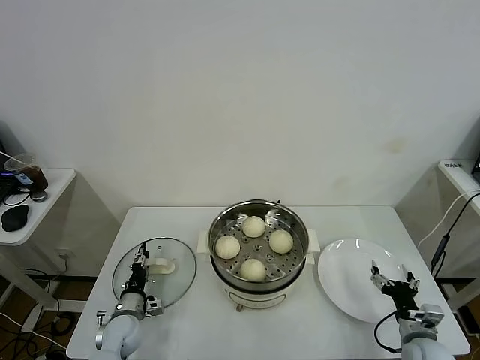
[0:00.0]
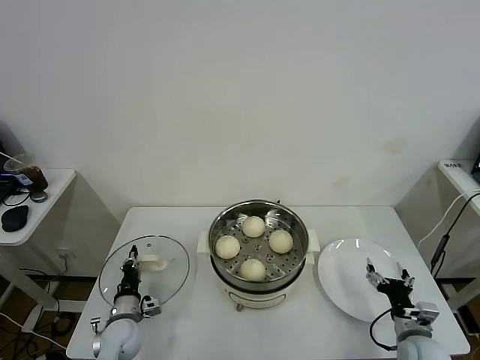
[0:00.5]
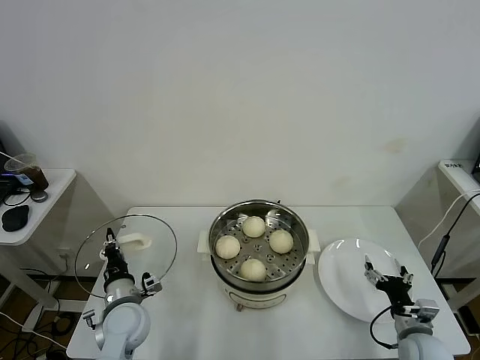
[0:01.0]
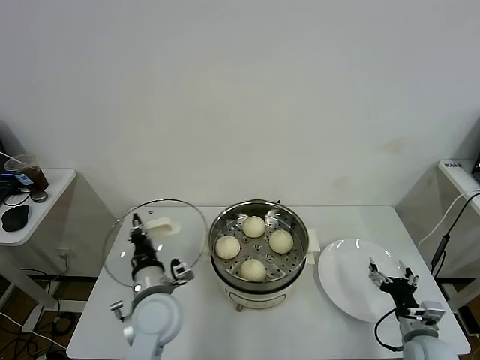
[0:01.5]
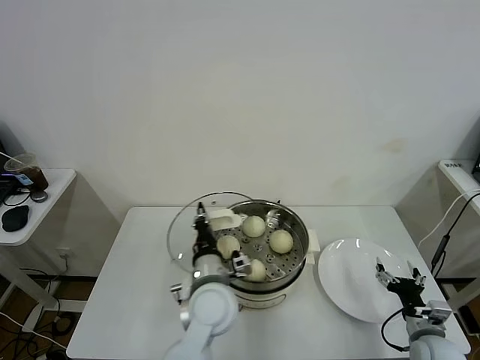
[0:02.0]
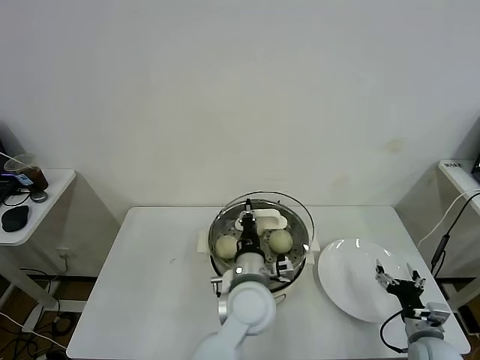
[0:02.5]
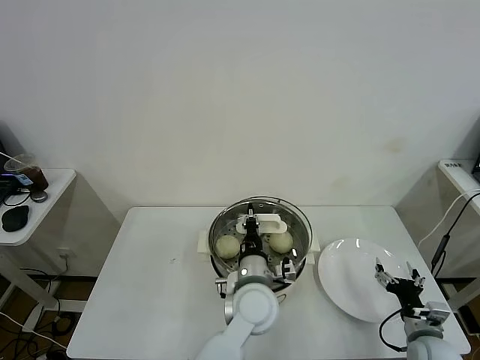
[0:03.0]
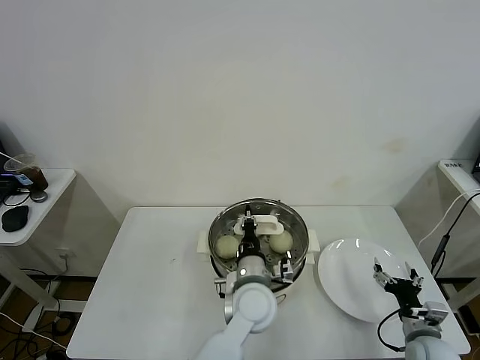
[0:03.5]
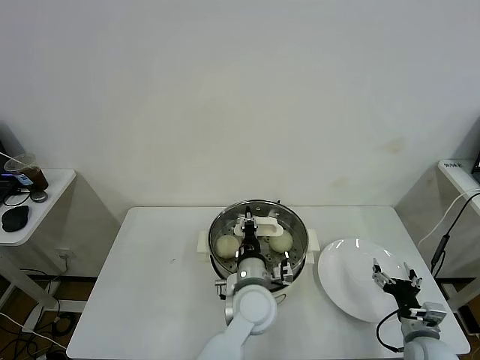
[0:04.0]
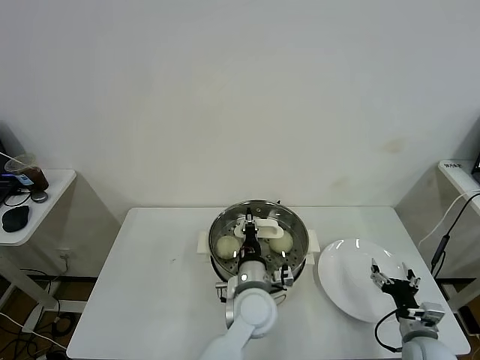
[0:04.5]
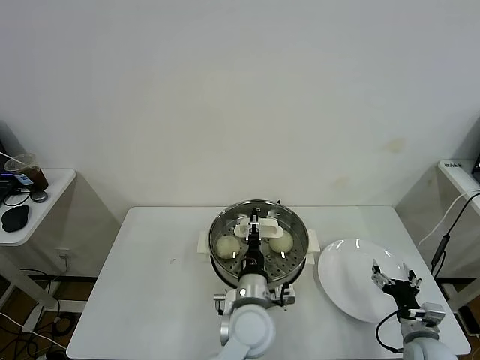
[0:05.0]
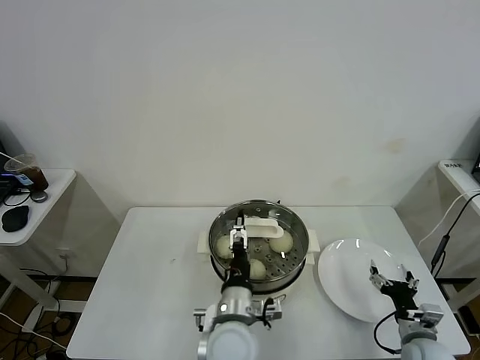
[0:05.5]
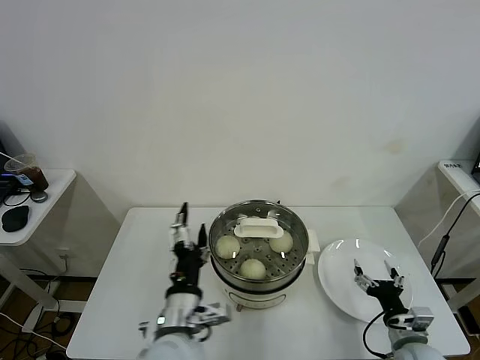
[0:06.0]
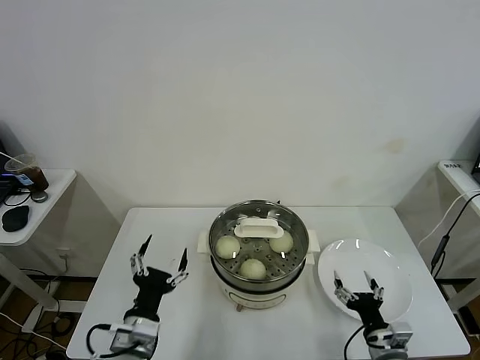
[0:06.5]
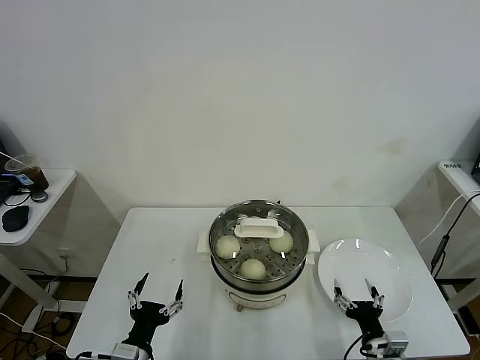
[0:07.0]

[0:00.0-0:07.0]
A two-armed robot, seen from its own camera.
Task of the whole recording: take steamed baozi put them in steamer.
Step, 0:01.0 to 0:05.0: Place the pot lid on the steamer with left gripper.
0:00.0 to 0:02.0: The left gripper shifts approximately 30 cm to the right and upward, and closes.
0:02.0 to 0:03.5: The left gripper moves to the right, about 10 cm.
0:03.5 to 0:05.0: The left gripper opens its fingers.
0:05.0 to 0:07.0: The left gripper moves to the left and backward, some 30 cm, and opens up; the right gripper goes about 10 cm to the left and backward.

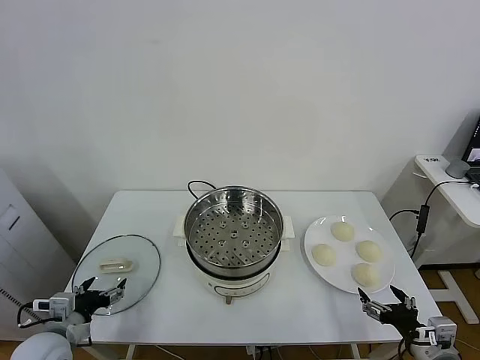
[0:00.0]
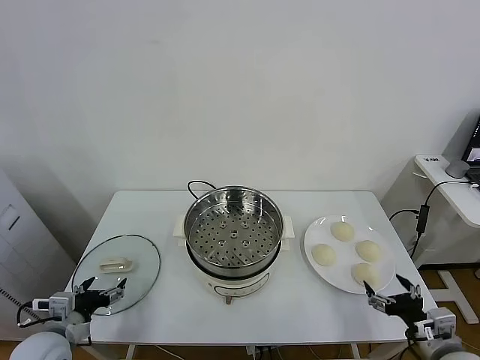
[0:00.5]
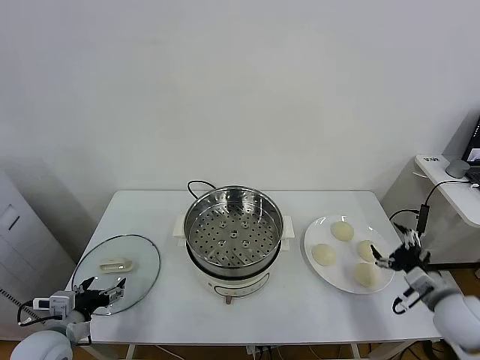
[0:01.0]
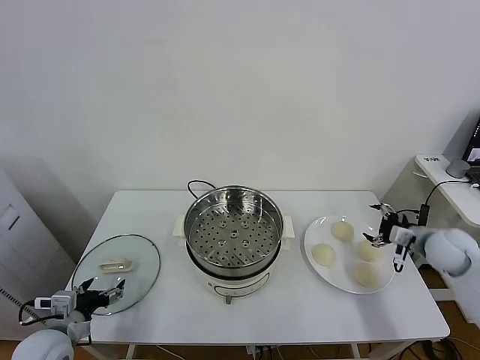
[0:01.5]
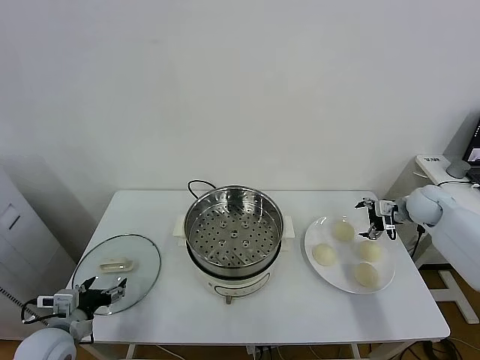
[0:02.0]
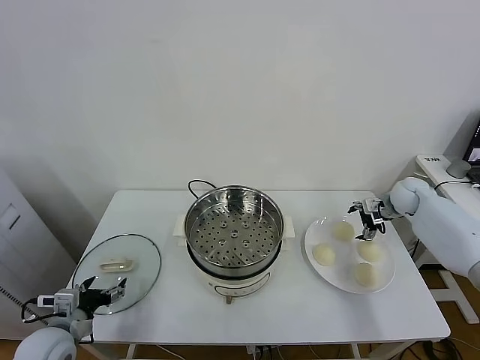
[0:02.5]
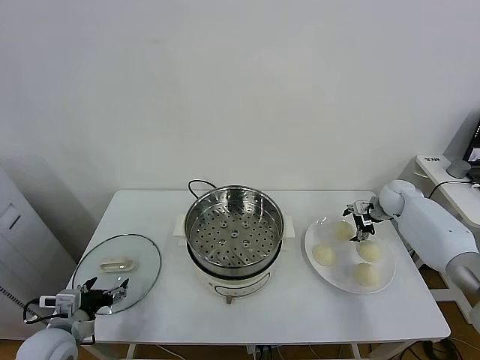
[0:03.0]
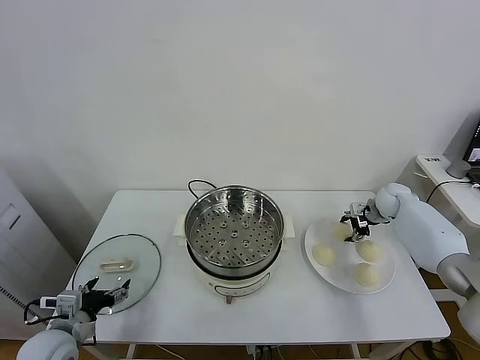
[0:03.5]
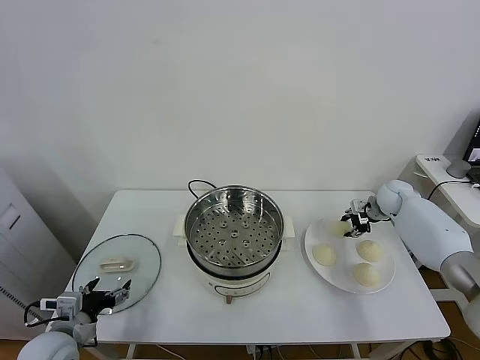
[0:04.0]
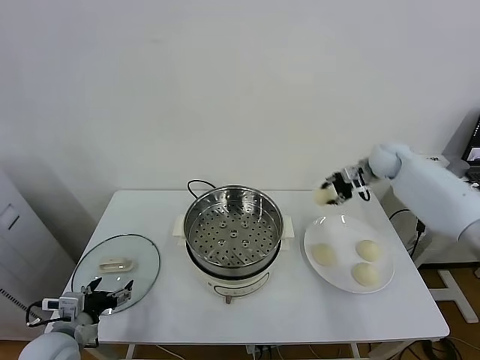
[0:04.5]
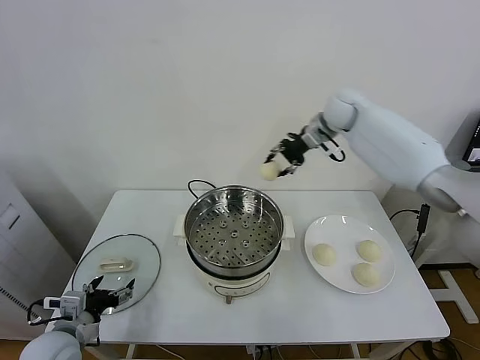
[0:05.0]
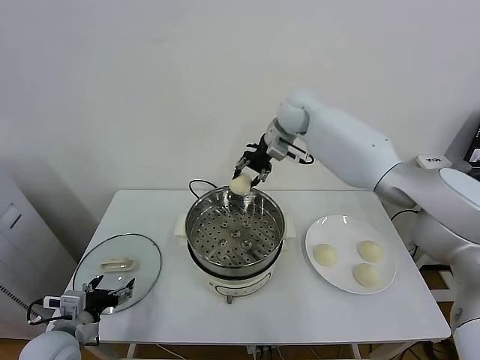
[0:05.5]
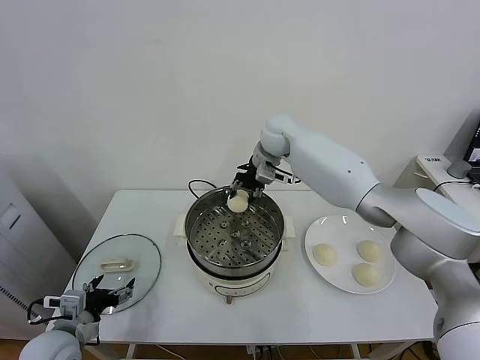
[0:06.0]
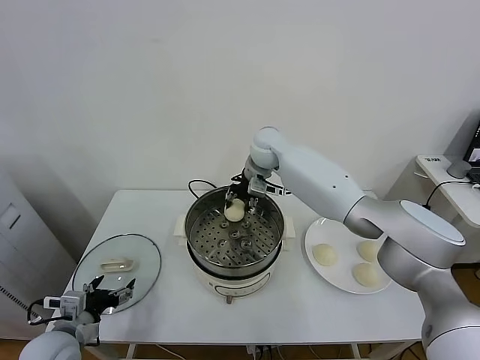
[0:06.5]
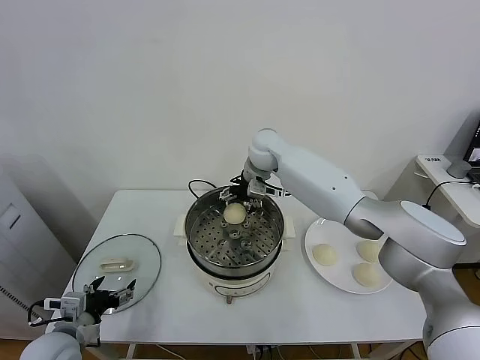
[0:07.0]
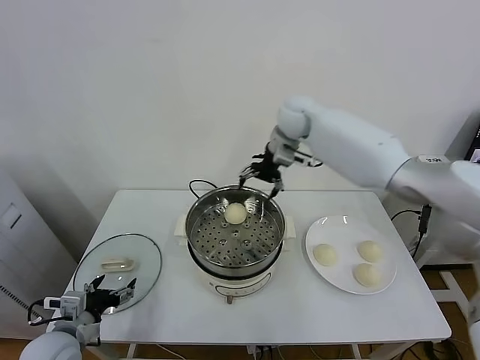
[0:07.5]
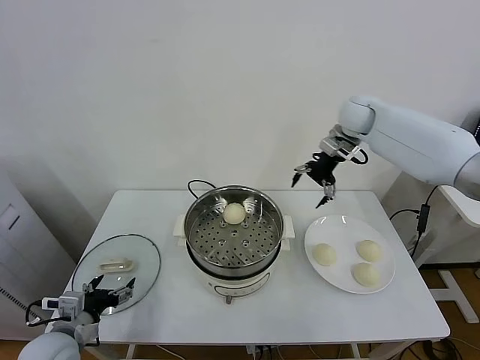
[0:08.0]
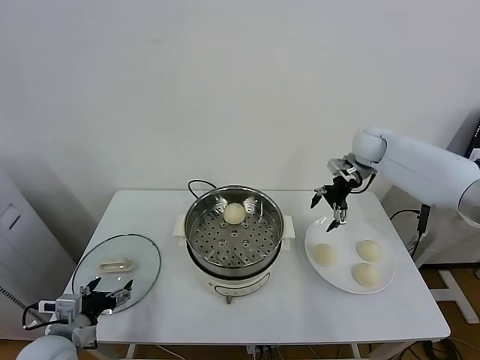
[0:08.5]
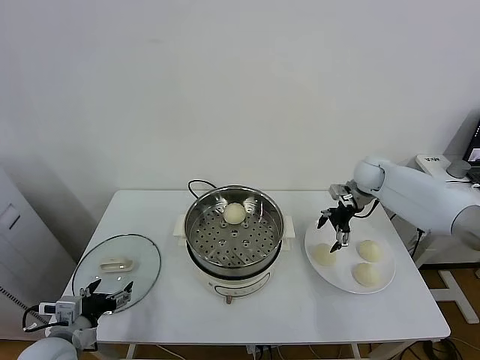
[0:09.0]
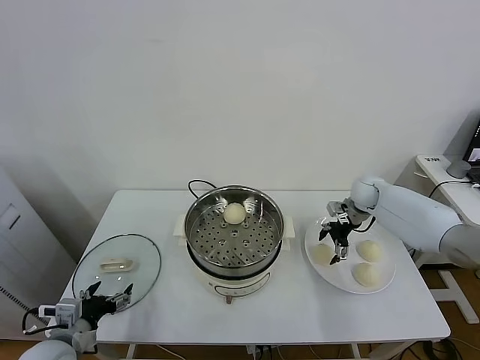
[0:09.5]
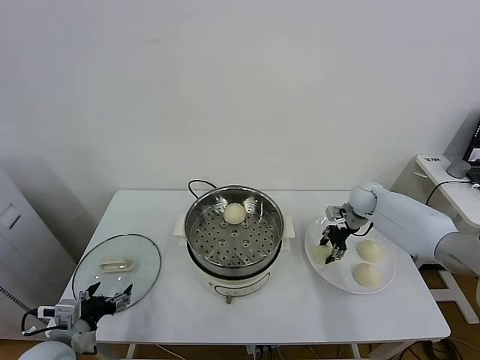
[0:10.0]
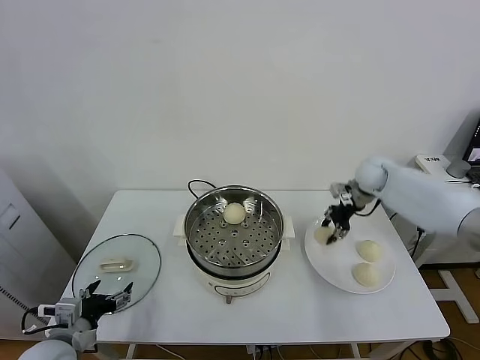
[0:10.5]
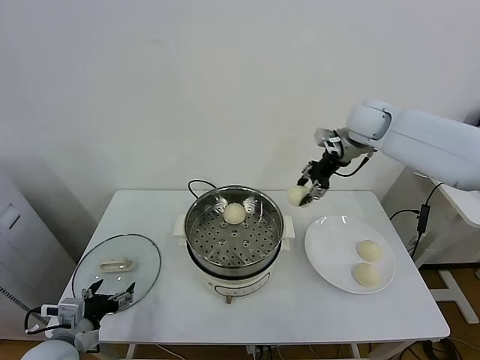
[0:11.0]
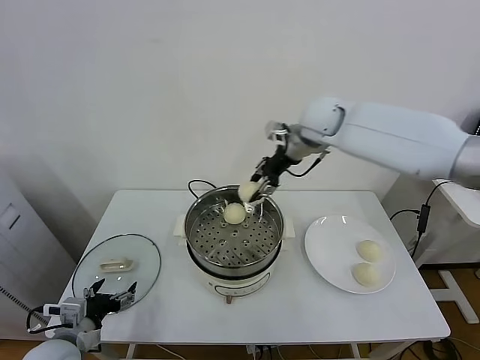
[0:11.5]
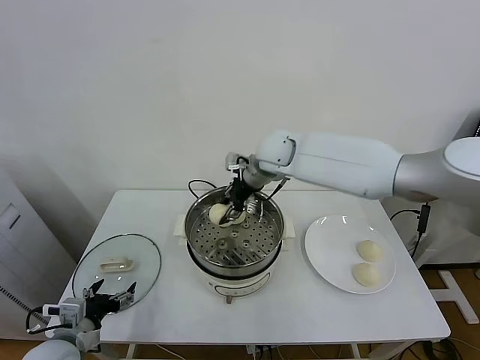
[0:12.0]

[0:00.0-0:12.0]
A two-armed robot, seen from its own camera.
Task of the whole recording: take steamed baozi put them in steamer.
Step, 0:00.0 to 0:03.5: Grasp the baozi in the plate with right gripper.
Step, 0:04.0 to 0:07.0: Place the baozi on the steamer with right gripper.
Step, 0:07.5 to 0:09.5: Grasp the baozi in the plate with right gripper.
0:02.0 to 0:04.0: The right gripper travels forward by some 5 cm, and closes its fingers.
0:04.0 to 0:06.0: The right gripper shifts approximately 40 cm to the left and upward.
0:06.0 to 0:08.0: The right gripper moves to the right, roughly 20 cm, and opens.
0:08.0 to 0:10.0: The right gripper travels downward by about 25 cm, and closes.
0:10.0 to 0:12.0: The right gripper travels to the left and upward by roughly 35 cm.

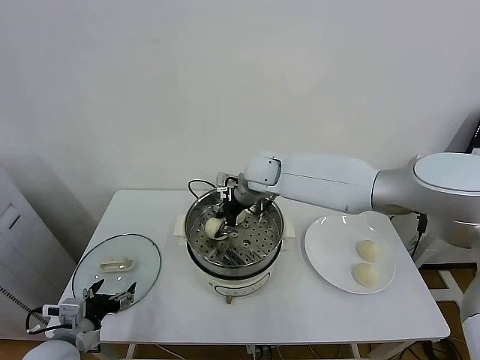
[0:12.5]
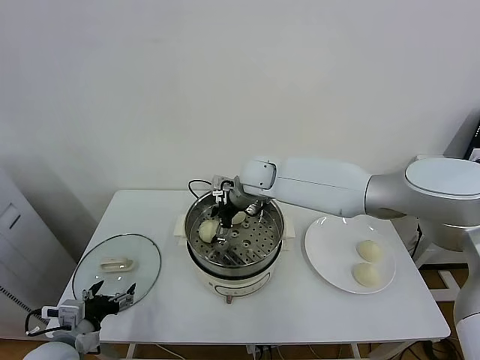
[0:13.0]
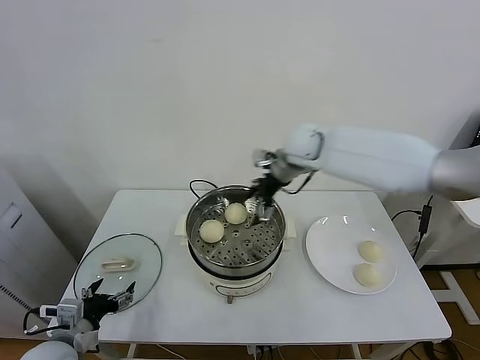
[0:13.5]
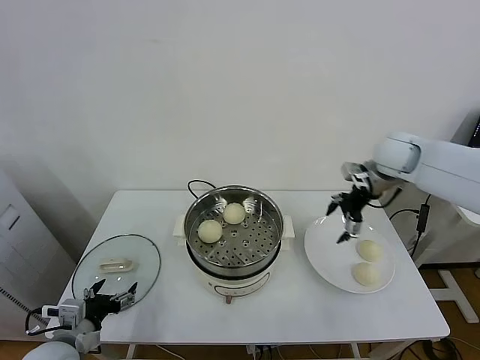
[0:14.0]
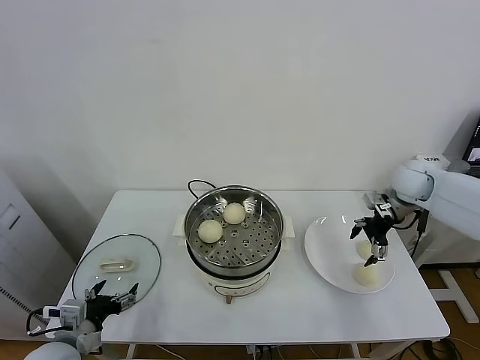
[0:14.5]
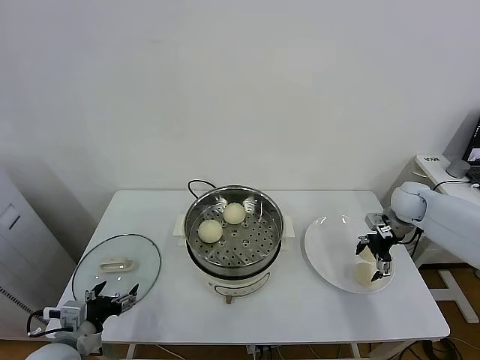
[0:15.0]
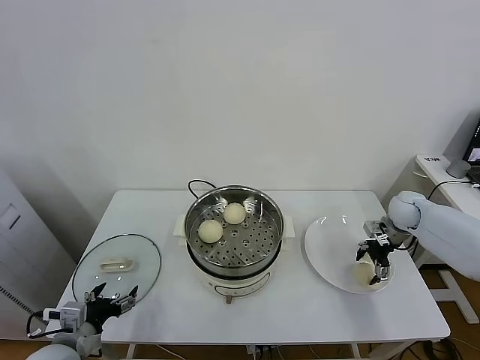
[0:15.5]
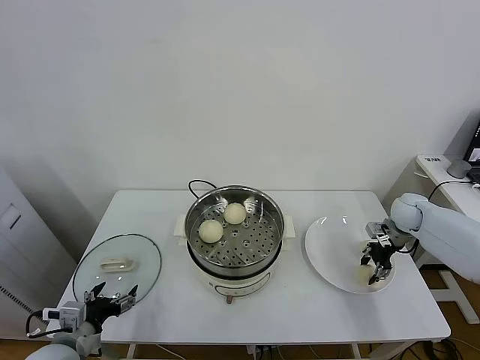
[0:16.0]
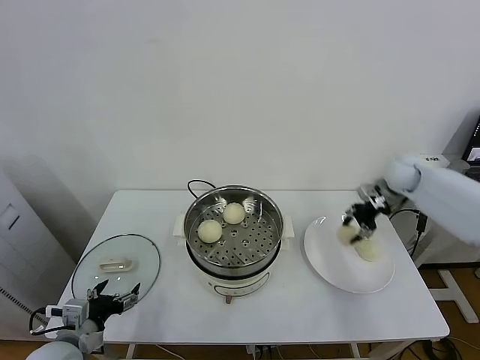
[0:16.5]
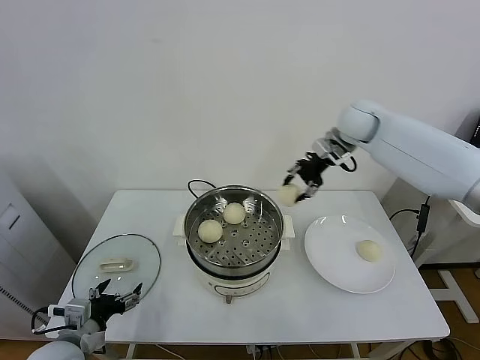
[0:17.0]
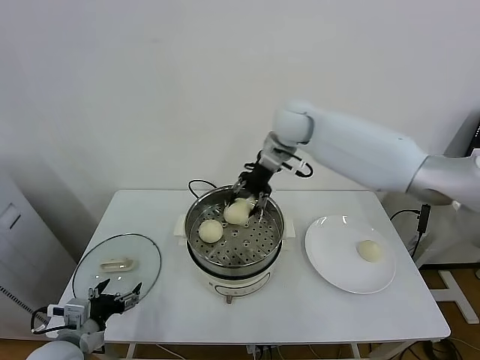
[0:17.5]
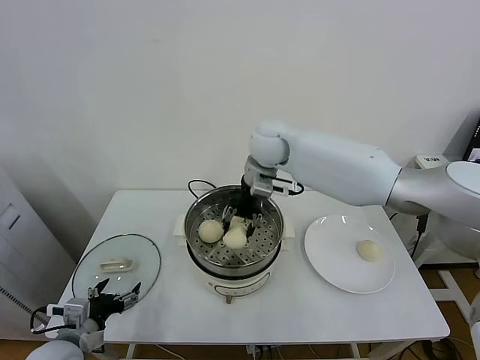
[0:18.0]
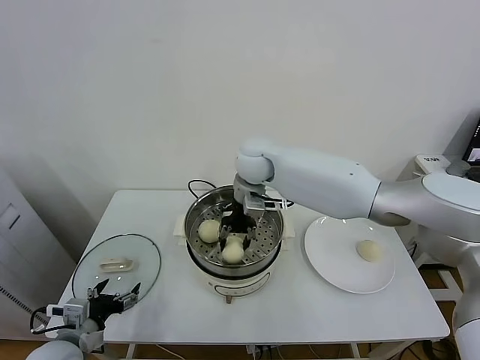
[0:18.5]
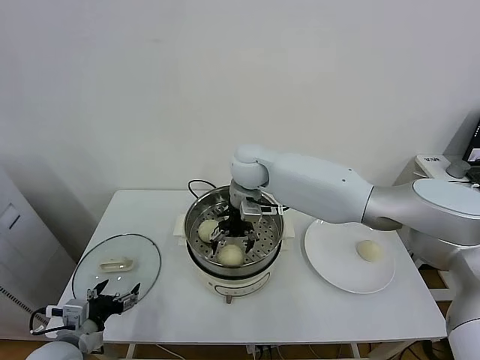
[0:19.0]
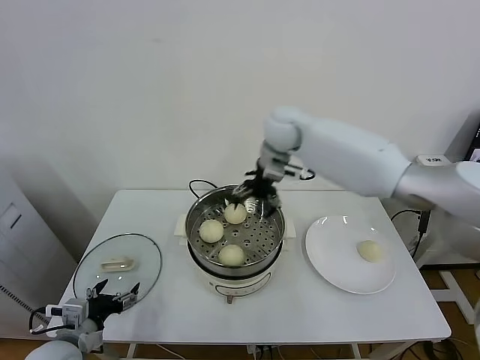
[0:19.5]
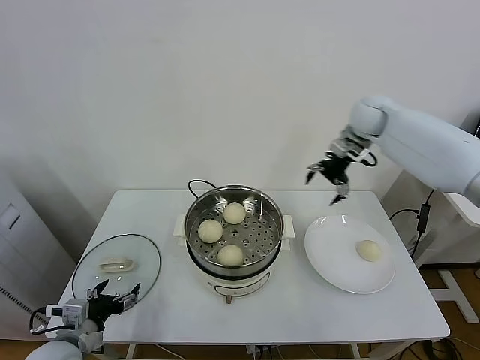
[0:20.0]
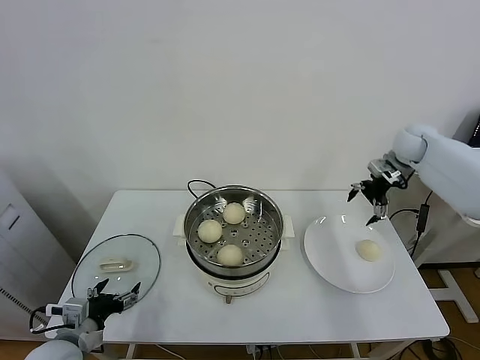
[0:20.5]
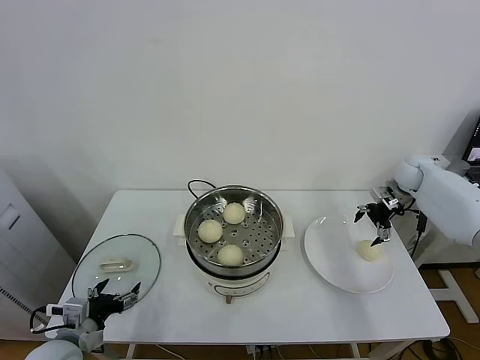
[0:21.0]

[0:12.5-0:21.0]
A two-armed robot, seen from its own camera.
Task of the whole recording: take steamed baozi put them in steamer.
Step, 0:13.5 to 0:15.5: Grasp the baozi in the plate with right gripper.
Step, 0:16.0 to 0:19.0: Place the baozi on the steamer with right gripper.
0:12.5 to 0:14.5: The right gripper heads to the right, covering approximately 35 cm, and opens up.
0:14.5 to 0:16.5: The right gripper goes downward and returns, approximately 10 cm each way, and closes.
0:16.5 to 0:19.0: The right gripper moves to the left, about 35 cm, and opens up.
0:19.0 to 0:21.0: The right gripper heads to the right, covering roughly 40 cm.
